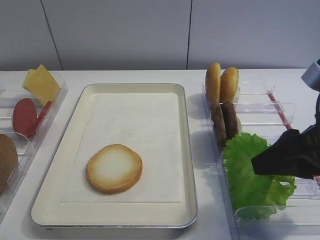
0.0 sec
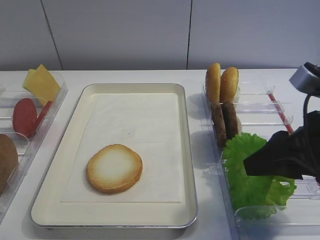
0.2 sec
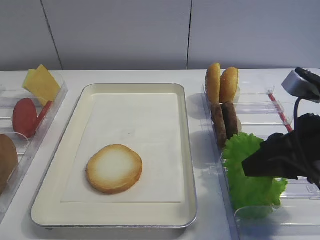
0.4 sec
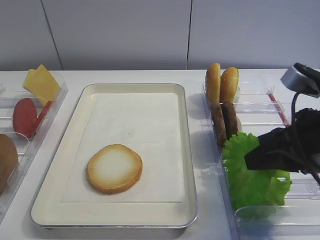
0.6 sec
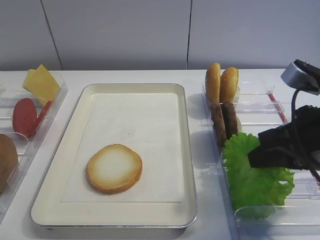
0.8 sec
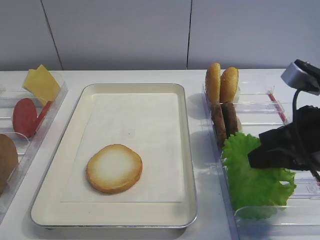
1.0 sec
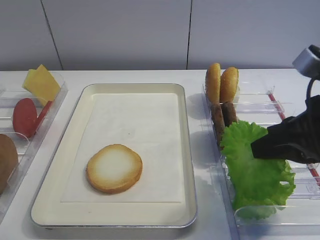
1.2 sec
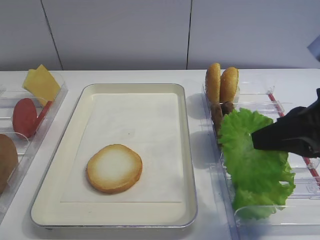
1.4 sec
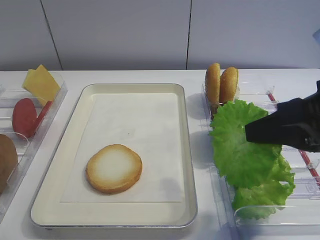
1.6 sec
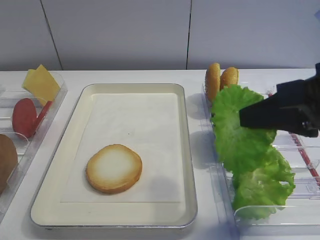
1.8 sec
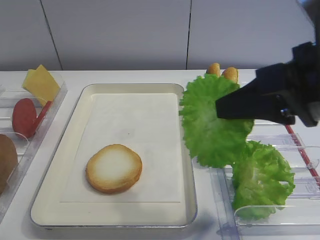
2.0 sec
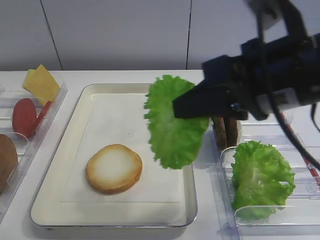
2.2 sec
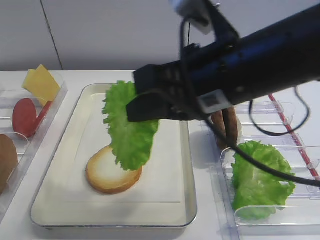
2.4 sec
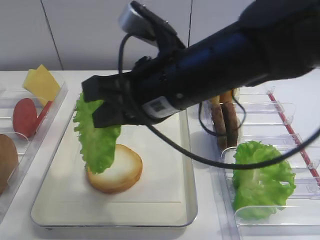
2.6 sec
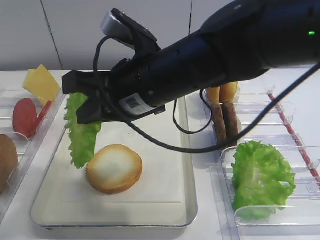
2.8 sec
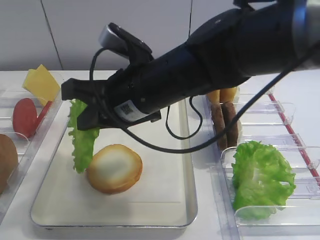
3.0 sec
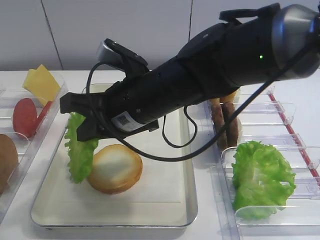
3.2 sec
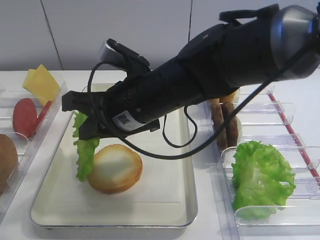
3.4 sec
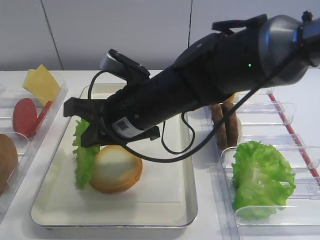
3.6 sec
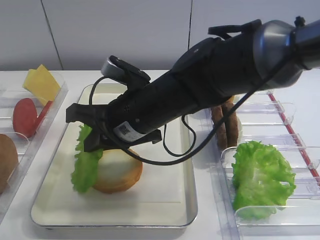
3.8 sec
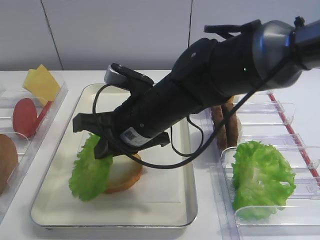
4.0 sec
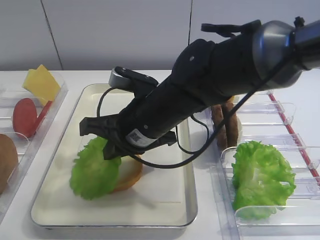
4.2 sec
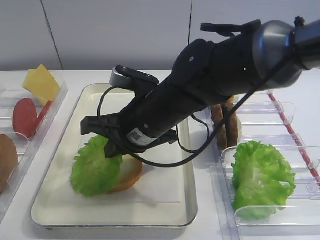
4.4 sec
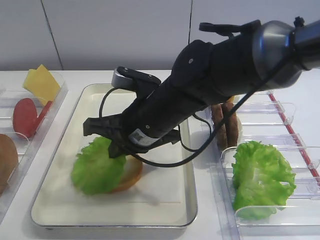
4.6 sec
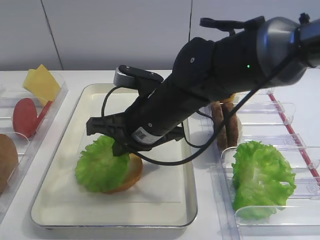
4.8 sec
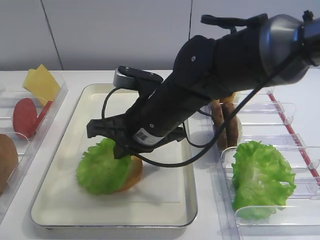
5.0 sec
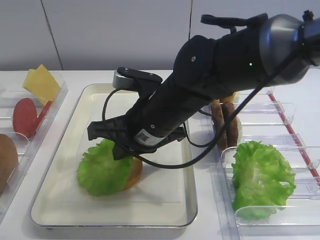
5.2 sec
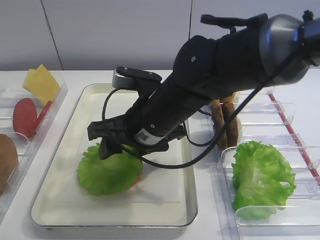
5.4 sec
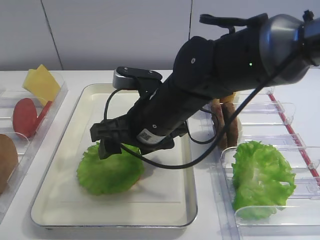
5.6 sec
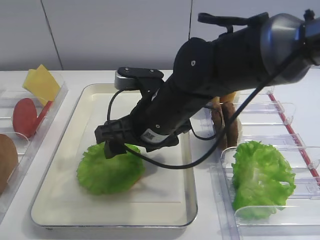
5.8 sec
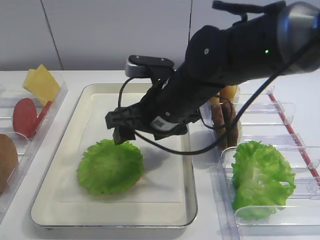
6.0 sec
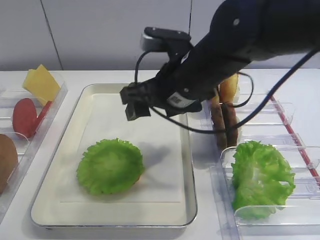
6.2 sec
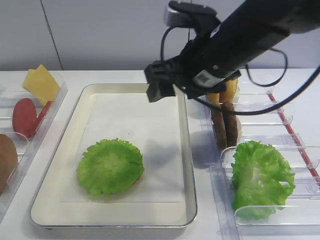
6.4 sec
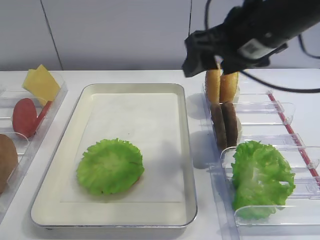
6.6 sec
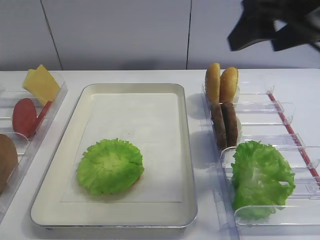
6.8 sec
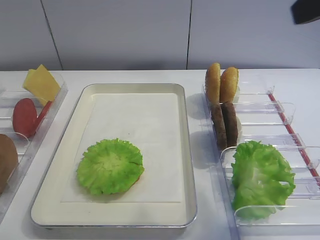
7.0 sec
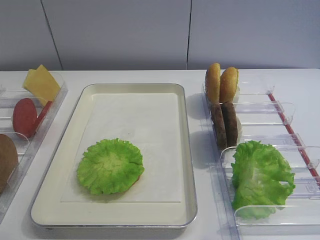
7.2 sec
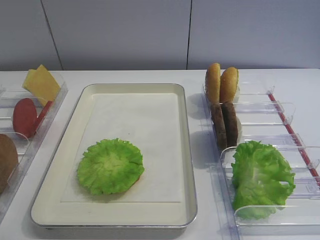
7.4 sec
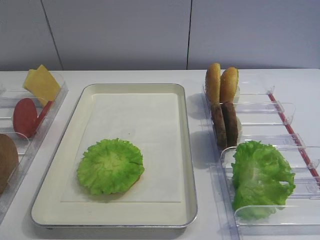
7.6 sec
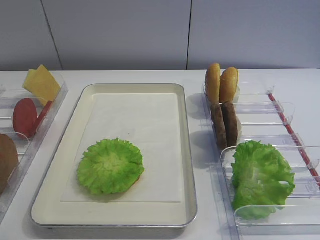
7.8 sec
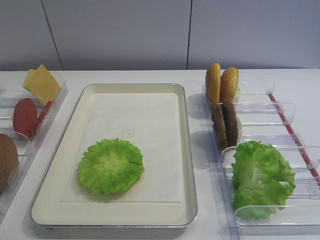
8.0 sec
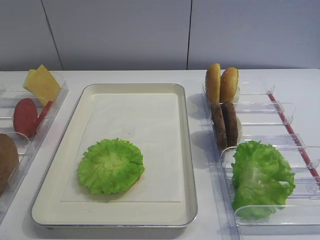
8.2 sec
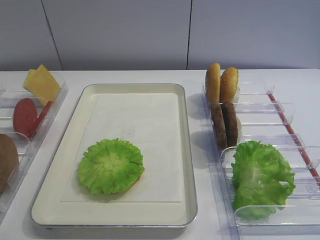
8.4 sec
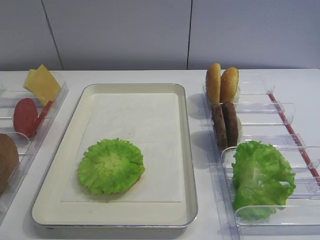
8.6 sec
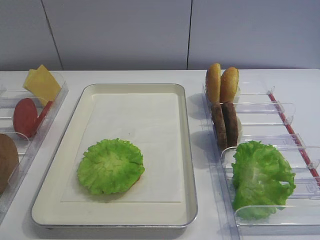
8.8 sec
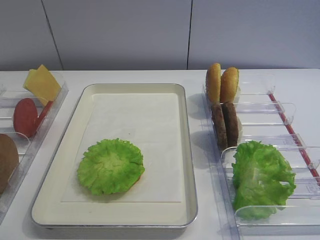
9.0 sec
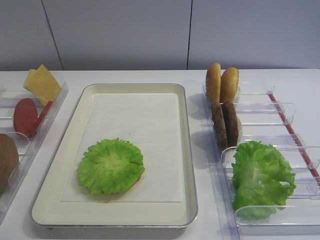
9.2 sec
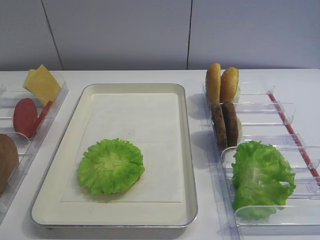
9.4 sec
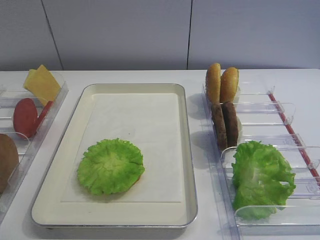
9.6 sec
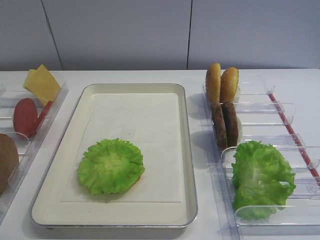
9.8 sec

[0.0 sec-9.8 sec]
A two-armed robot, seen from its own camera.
Step, 1.6 sec to 5.8 sec: Place the lettuce leaf on the bread slice with the right gripper.
0.0 sec to 1.4 sec: The right gripper closes its fingers.
1.4 sec to 2.8 sec: The right gripper shifts about 20 cm to the left.
2.8 sec to 4.2 sec: The right gripper moves downward, about 5 cm.
4.2 sec to 5.6 sec: The right gripper opens.
5.6 sec to 7.0 sec: The right gripper heads to the right and upward, covering roughly 30 cm.
7.0 sec to 8.4 sec: The right gripper heads backward and downward, covering roughly 25 cm.
8.4 sec to 9.8 sec: Both grippers stay about where they are.
